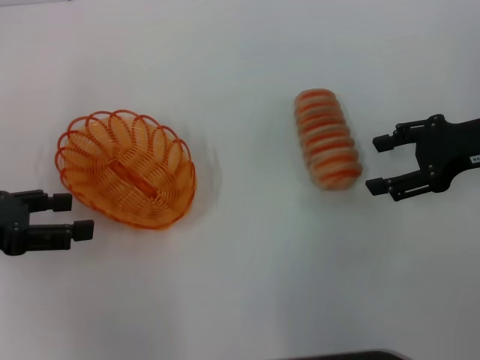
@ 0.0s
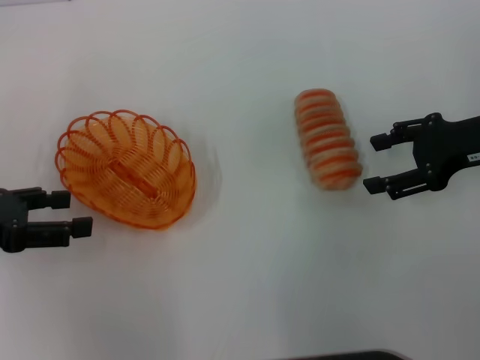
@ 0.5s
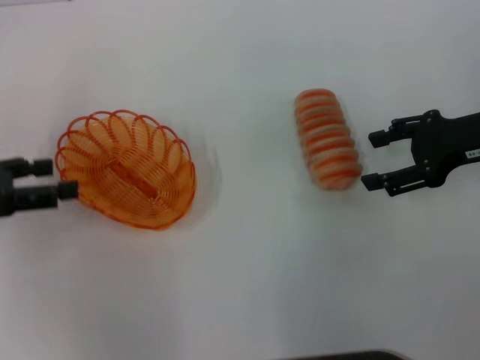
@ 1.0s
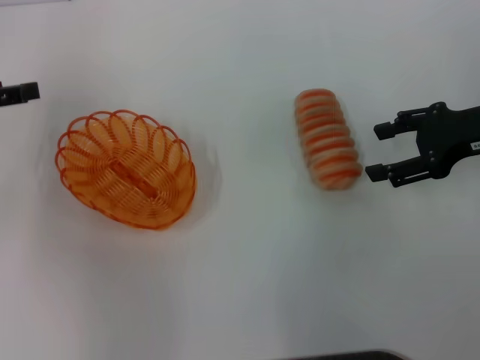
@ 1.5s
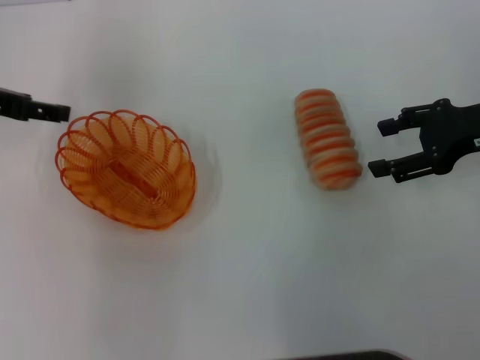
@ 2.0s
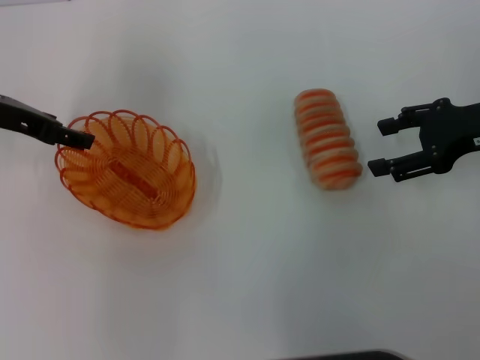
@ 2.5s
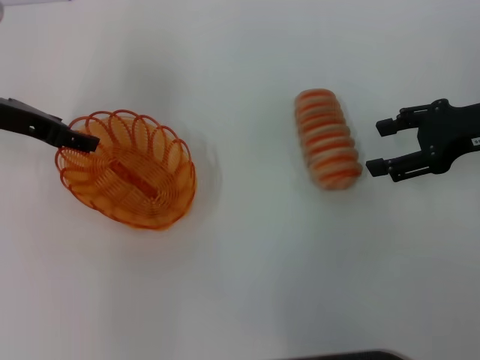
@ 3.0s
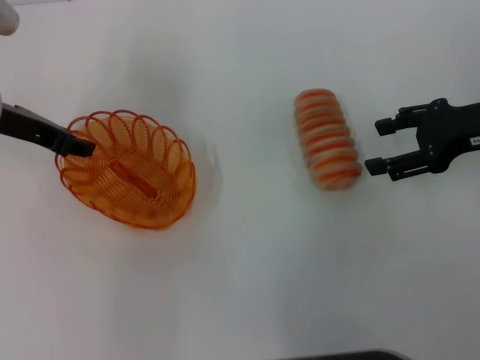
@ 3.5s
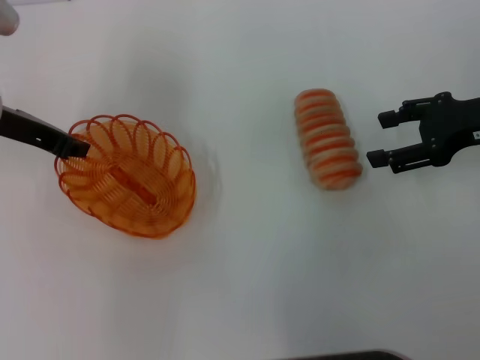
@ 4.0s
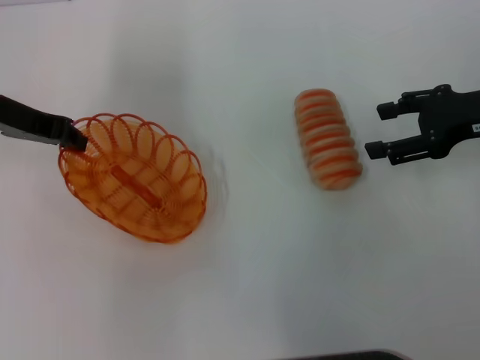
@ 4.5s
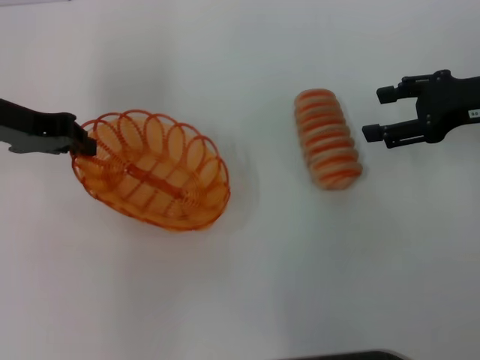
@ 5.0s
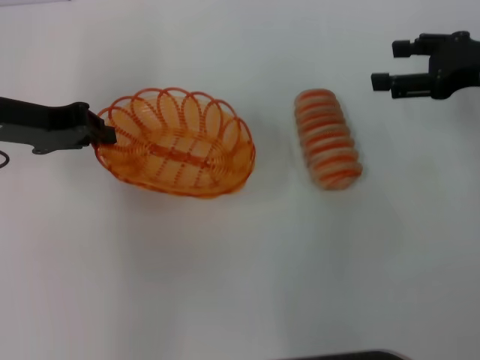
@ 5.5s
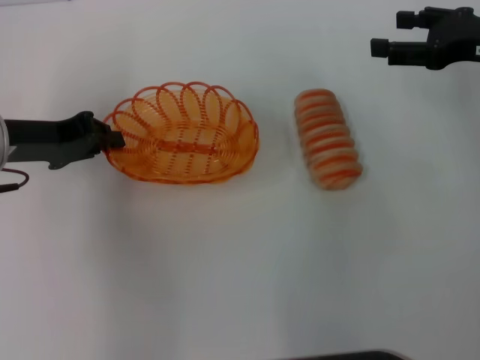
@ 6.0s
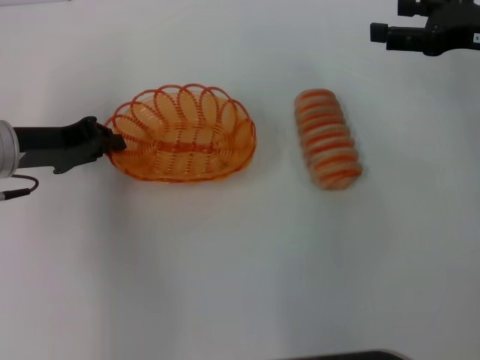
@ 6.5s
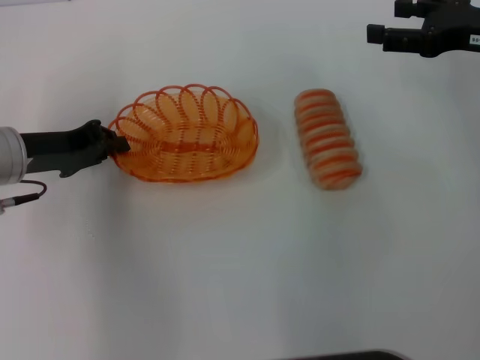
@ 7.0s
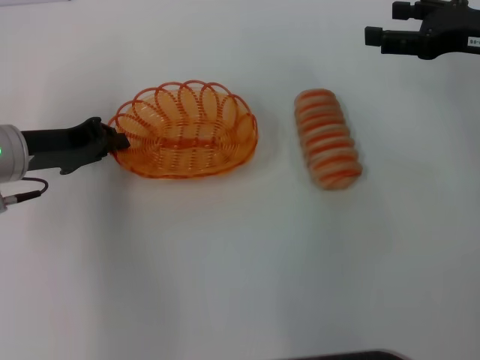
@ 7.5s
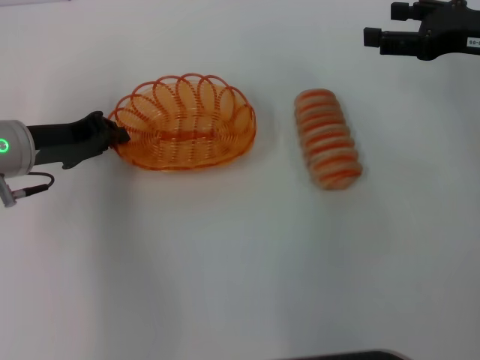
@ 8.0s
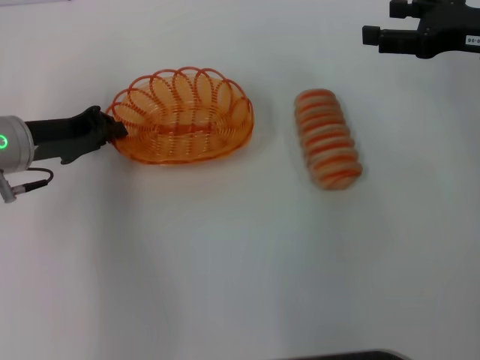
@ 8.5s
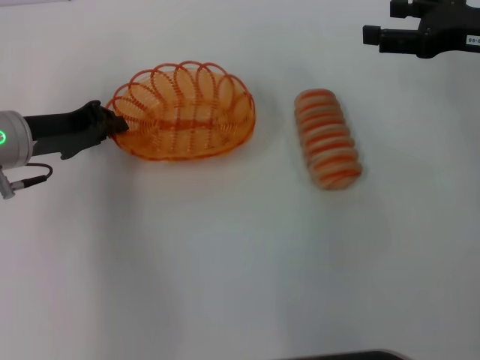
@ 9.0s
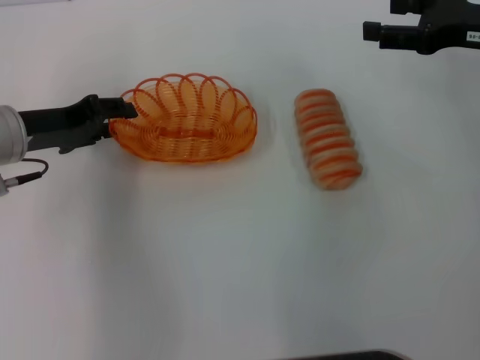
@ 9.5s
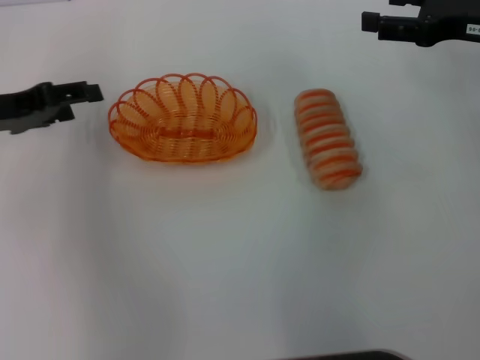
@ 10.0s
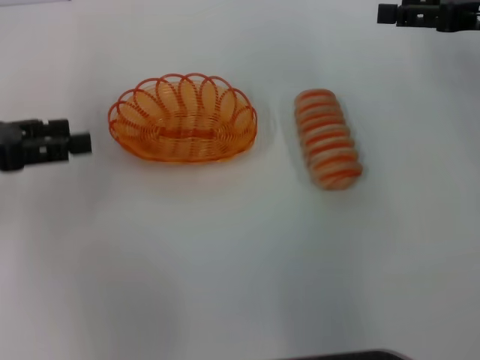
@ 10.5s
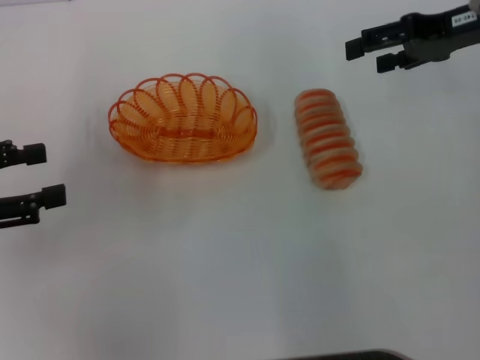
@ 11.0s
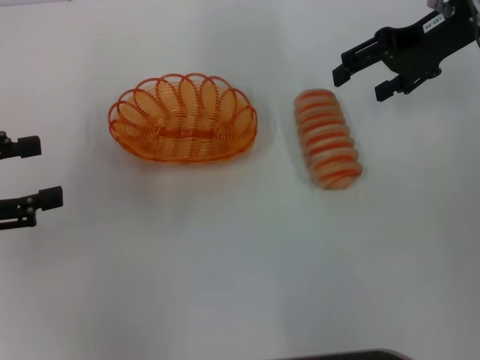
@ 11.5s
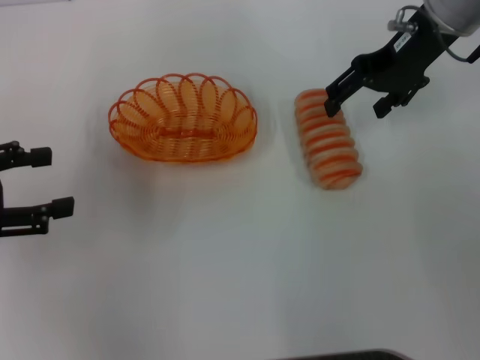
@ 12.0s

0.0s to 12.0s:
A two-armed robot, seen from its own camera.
Step, 0.0s to 4.5s: Pick up the basket with the left gripper.
Step, 5.0s to 9.5s: Place the basket in the center of view with the left gripper.
0.0s to 2.0s: The left gripper goes some 10 cm forward.
2.0s to 4.0s: The left gripper goes approximately 5 cm to the right, and closes its fingers.
6.0s to 8.0s: The grippers make only small movements.
8.0s to 10.0s: The left gripper ends up some 5 cm from where it was, and opens up.
10.0s to 12.0s: The left gripper shifts roughly 10 cm backward. Meanwhile the right gripper shifts some 10 cm to the left and forward.

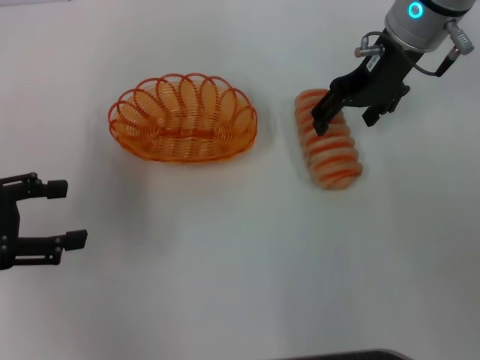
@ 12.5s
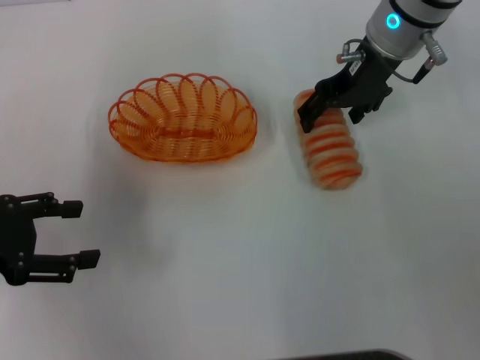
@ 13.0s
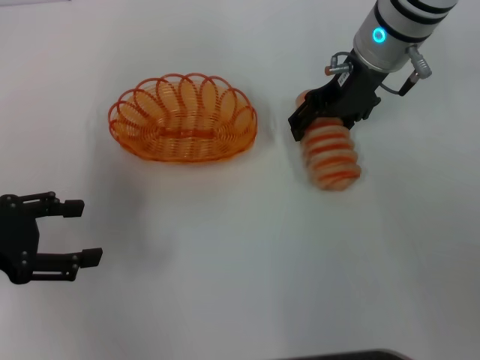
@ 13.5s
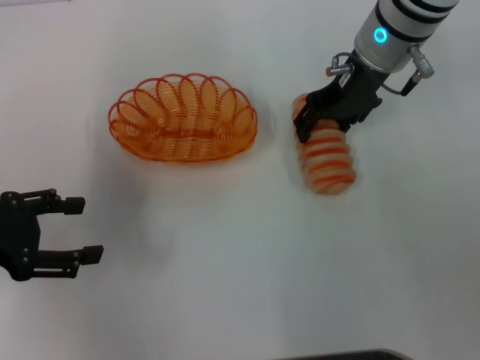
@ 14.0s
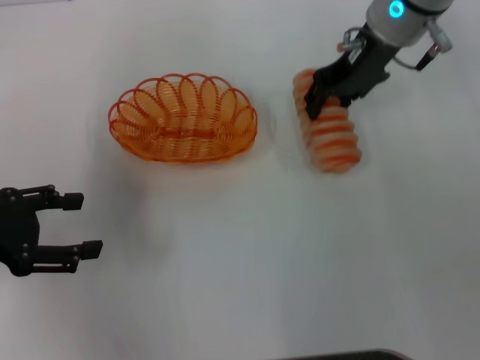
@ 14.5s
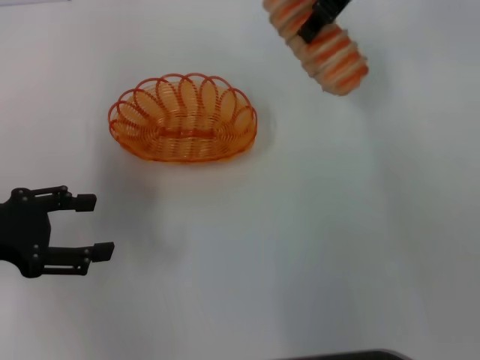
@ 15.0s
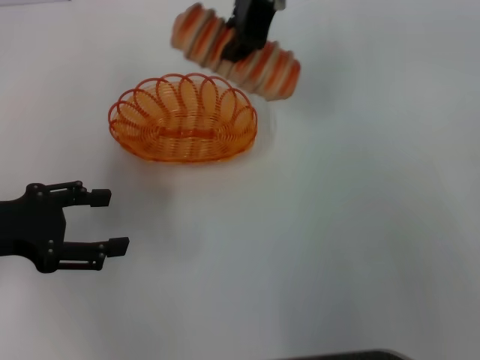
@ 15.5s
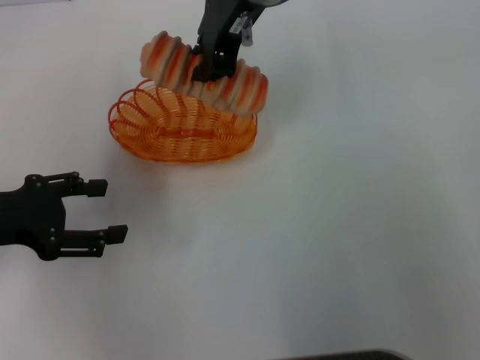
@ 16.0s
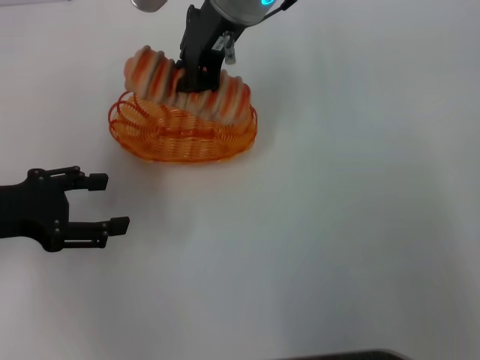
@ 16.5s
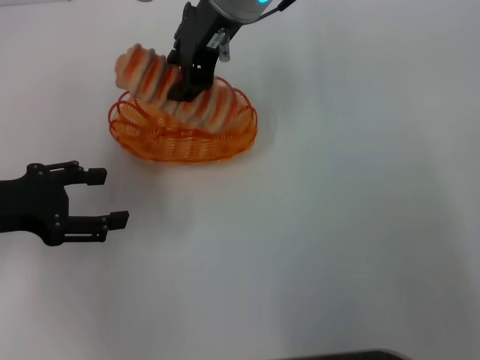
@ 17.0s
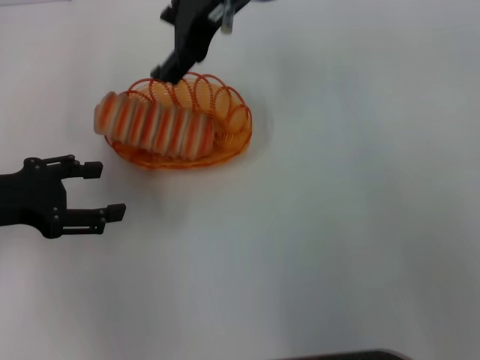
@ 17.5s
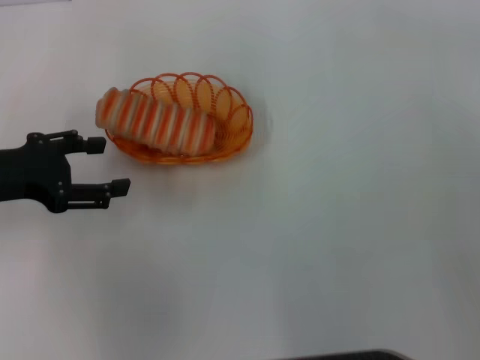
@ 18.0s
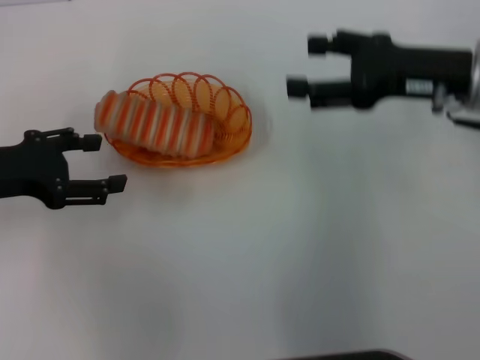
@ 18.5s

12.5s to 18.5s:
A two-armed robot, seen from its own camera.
Step, 14.5s to 17.0s: Place the long bread into the basket with the right gripper.
12.5s to 14.5s: The right gripper closes up.
14.5s to 16.5s: The right gripper goes roughly 15 cm to the left, and closes up.
16.5s to 18.5s: The right gripper goes some 25 cm to the right and backward, and opens its fingers.
